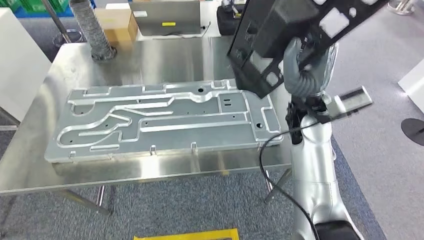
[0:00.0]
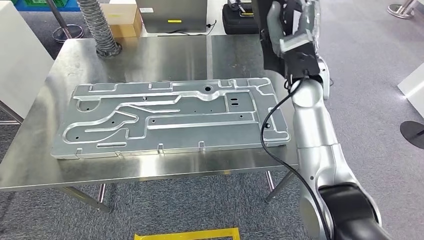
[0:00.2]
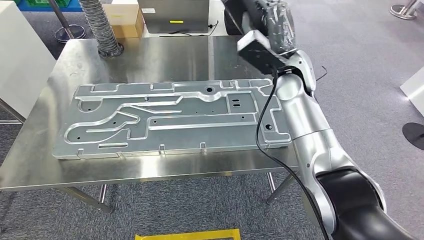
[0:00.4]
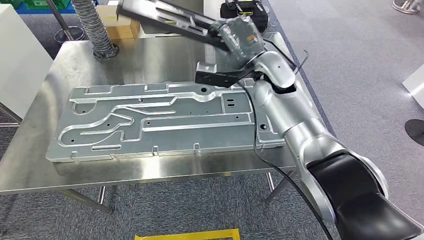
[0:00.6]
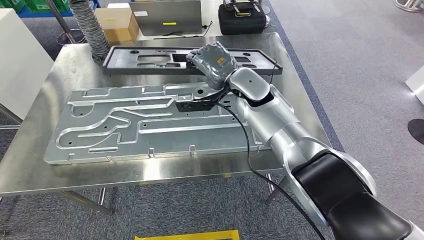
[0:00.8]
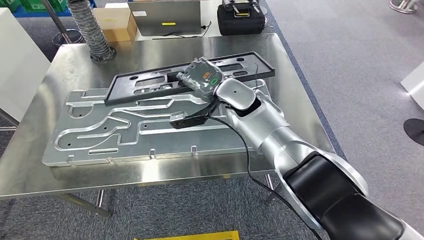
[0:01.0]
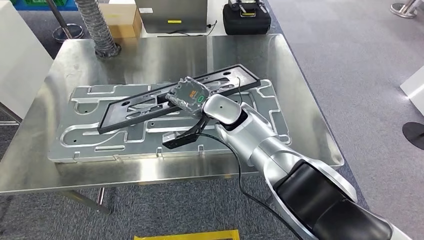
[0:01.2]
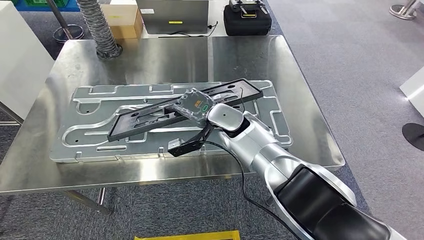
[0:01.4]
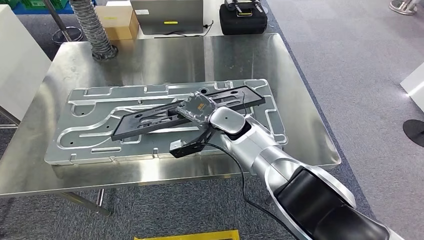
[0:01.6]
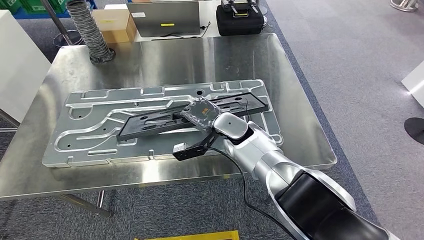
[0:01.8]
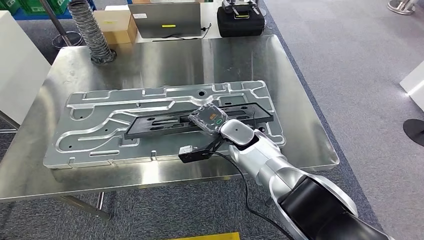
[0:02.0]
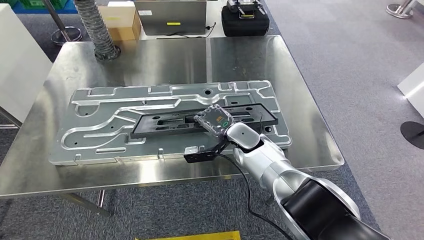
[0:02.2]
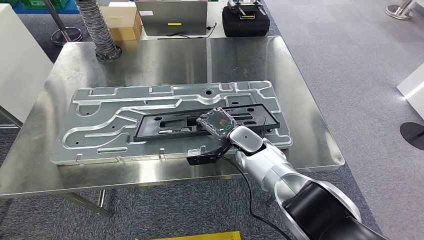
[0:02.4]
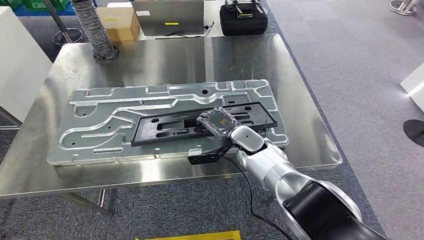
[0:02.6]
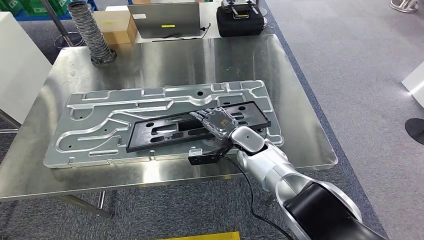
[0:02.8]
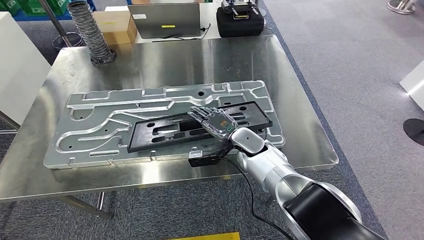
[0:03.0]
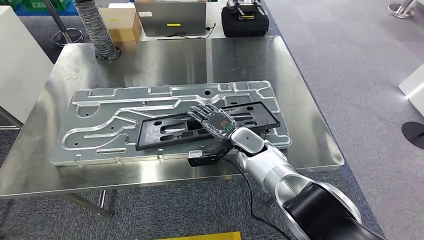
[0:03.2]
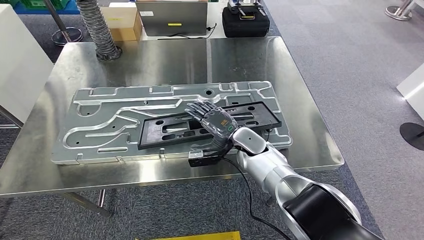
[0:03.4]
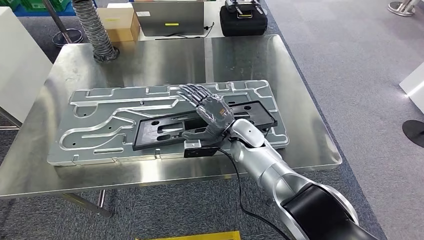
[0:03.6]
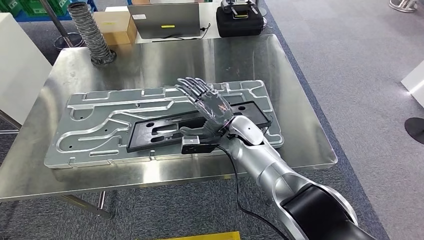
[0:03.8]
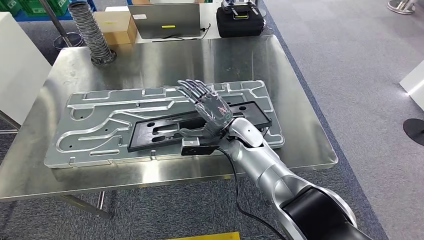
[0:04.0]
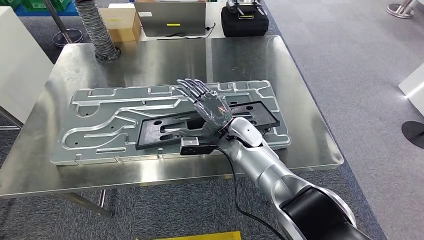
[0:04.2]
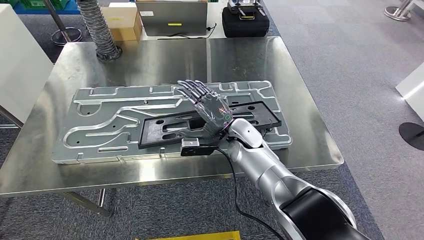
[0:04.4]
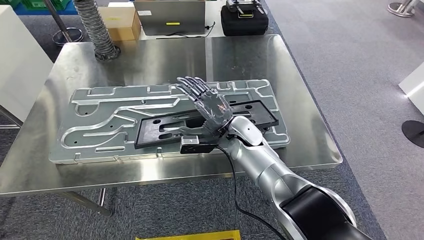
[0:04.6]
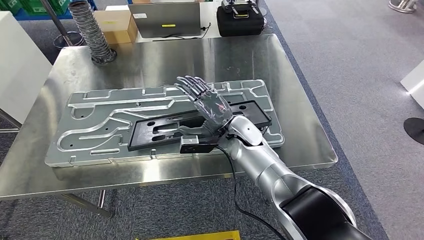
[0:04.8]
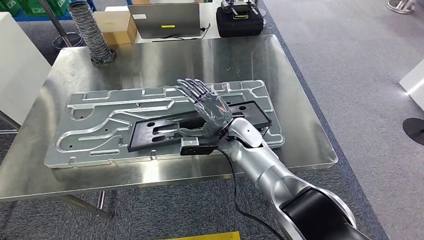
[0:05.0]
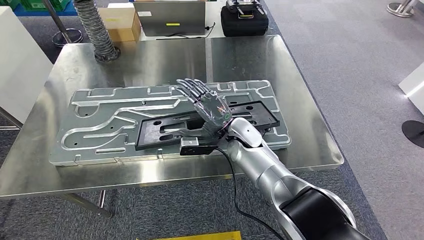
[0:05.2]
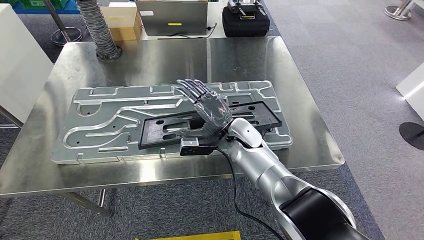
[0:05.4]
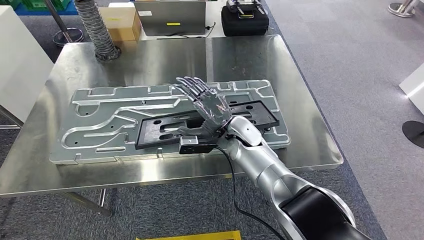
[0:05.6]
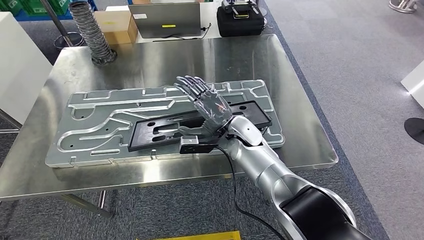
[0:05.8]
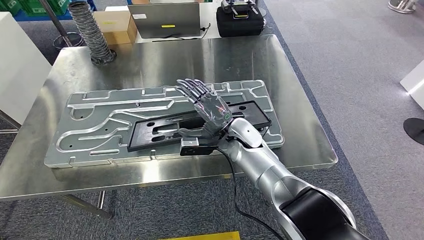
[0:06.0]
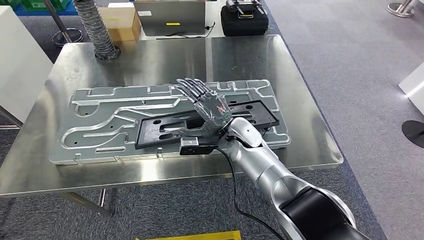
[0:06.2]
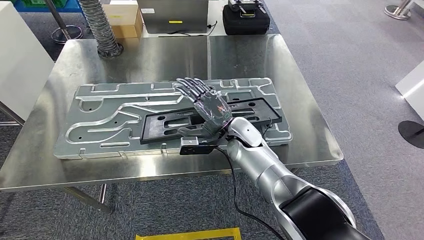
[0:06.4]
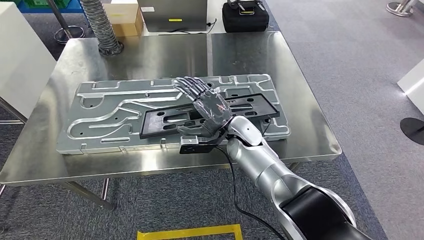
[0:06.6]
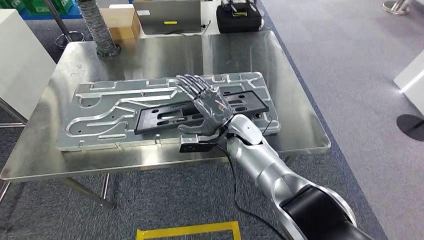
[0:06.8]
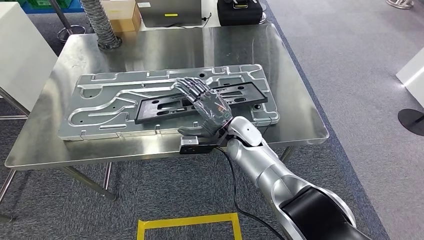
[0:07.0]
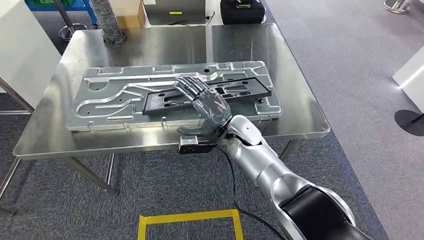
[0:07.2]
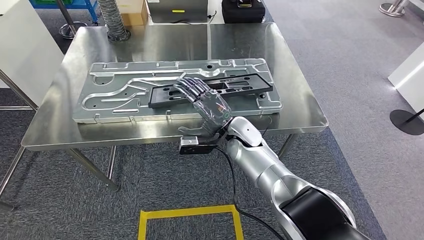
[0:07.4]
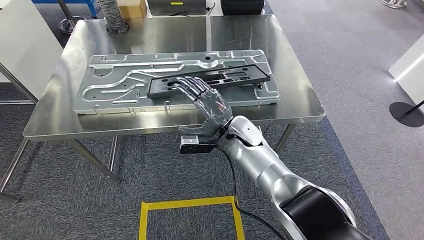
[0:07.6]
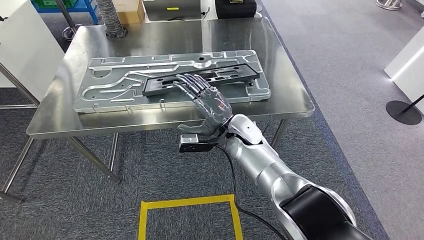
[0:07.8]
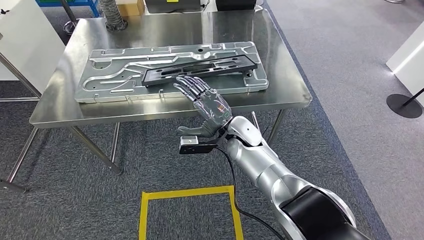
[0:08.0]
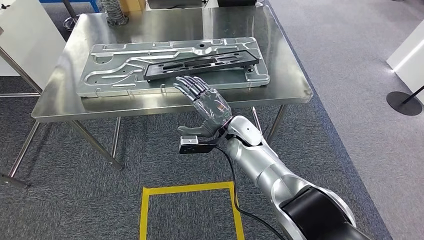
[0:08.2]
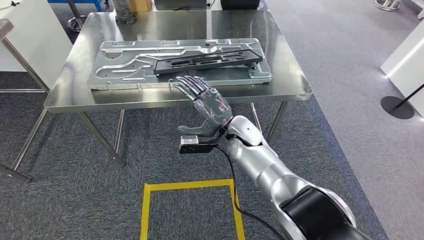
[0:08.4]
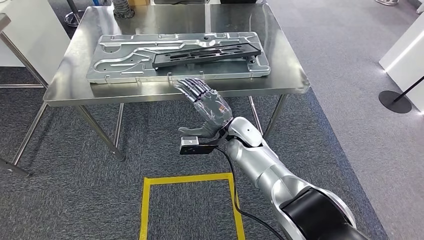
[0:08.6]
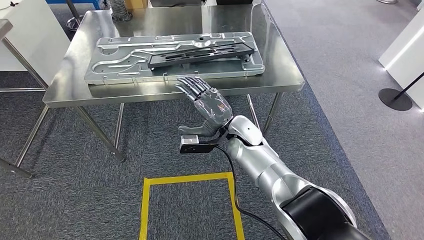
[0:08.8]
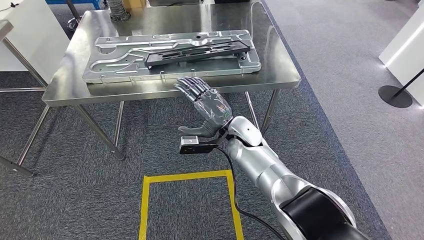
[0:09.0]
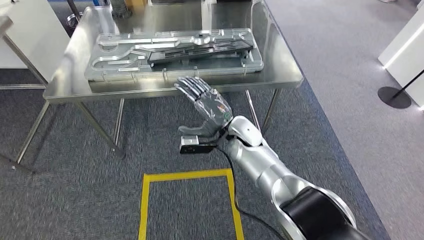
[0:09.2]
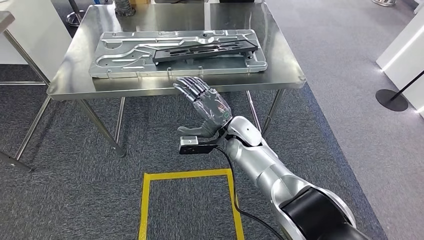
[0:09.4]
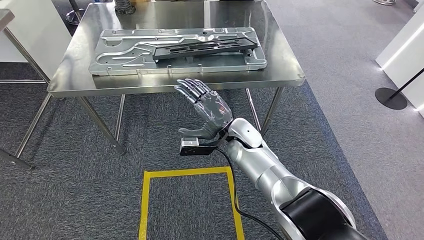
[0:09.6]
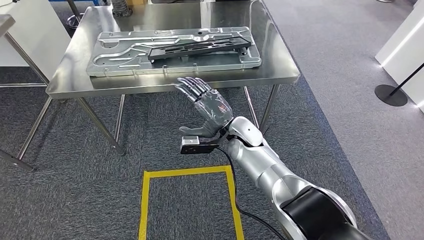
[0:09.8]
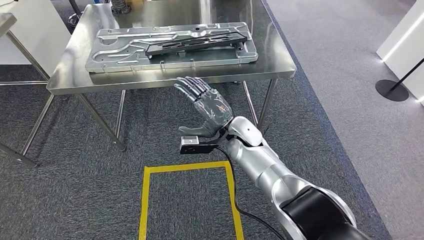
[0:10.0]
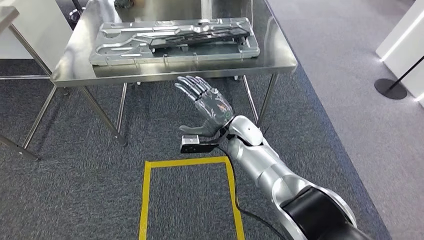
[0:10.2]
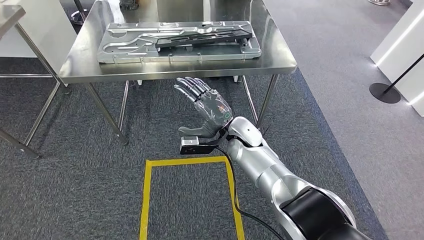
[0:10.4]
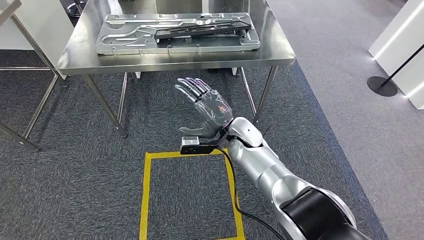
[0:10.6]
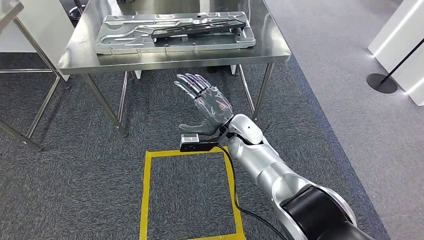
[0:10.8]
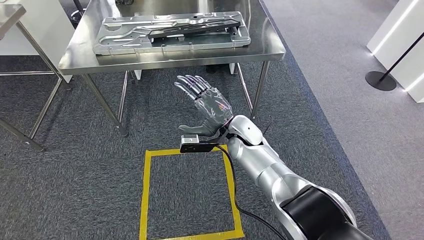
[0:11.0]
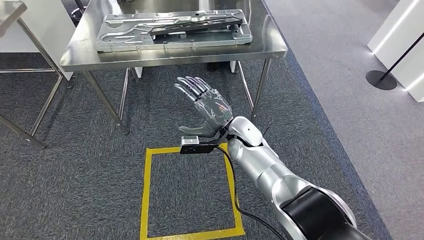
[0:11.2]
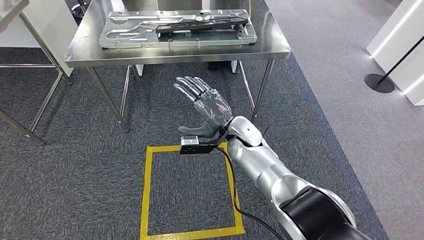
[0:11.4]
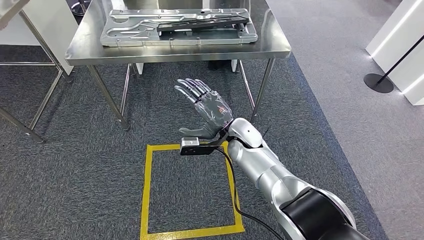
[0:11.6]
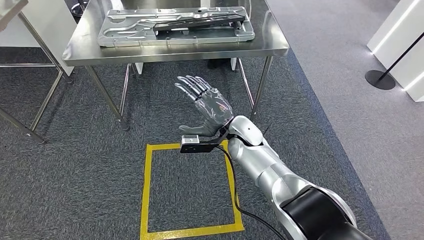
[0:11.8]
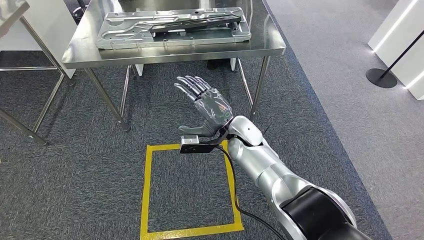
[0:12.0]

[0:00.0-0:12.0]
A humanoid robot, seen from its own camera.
Step, 0:01.0 to 0:06.4: Insert the large material into the corresponding hole on the workbench.
0:04.4 to 0:06.0: The two hands keep their place.

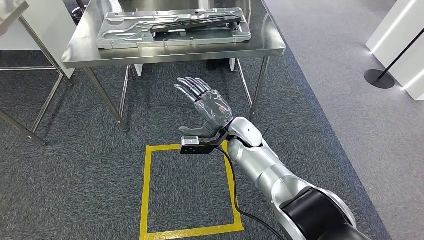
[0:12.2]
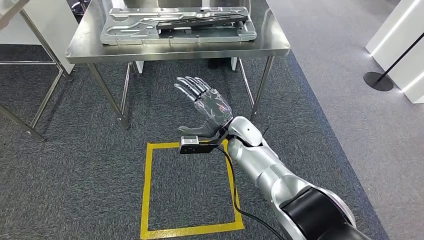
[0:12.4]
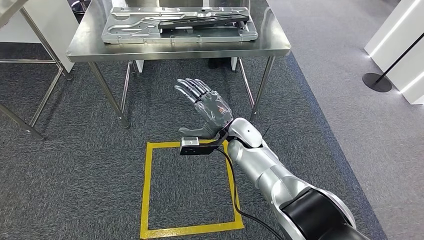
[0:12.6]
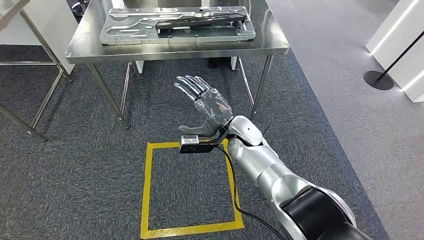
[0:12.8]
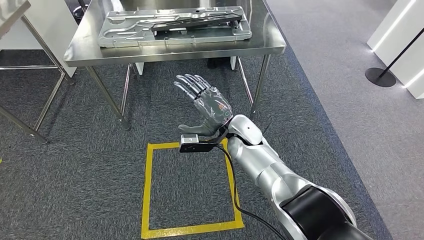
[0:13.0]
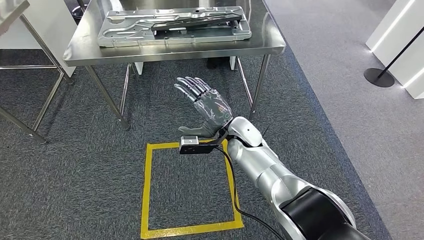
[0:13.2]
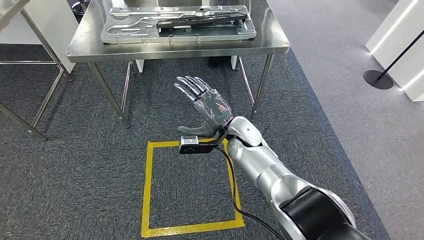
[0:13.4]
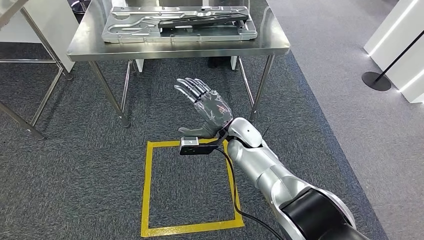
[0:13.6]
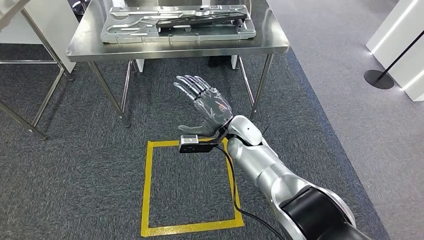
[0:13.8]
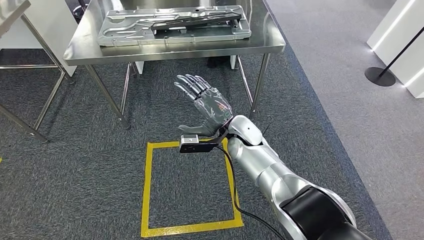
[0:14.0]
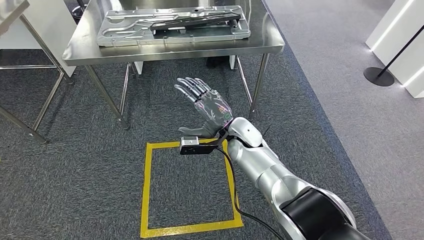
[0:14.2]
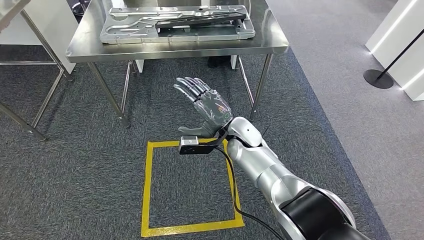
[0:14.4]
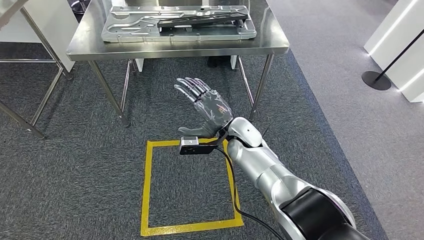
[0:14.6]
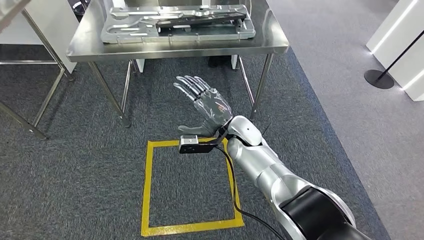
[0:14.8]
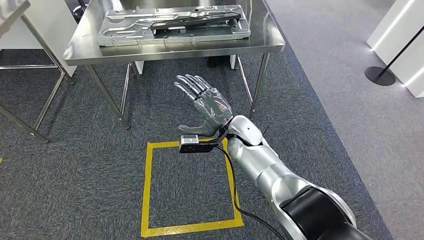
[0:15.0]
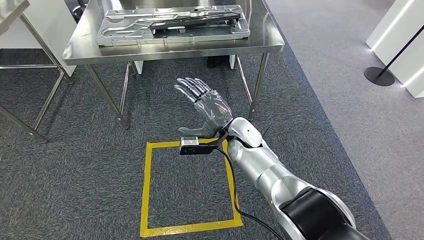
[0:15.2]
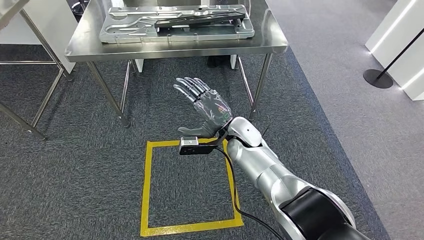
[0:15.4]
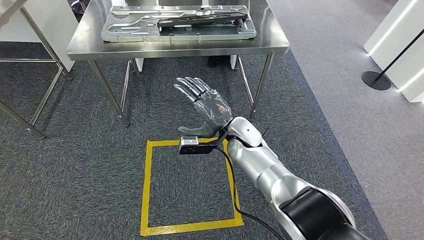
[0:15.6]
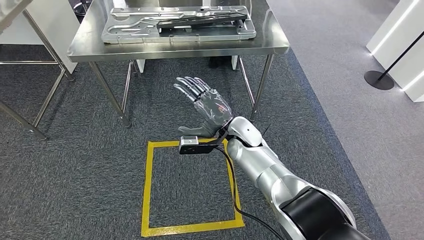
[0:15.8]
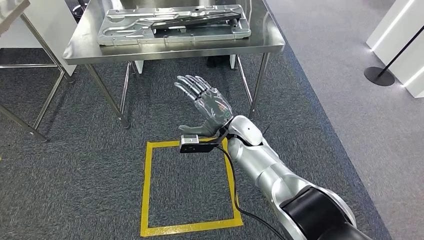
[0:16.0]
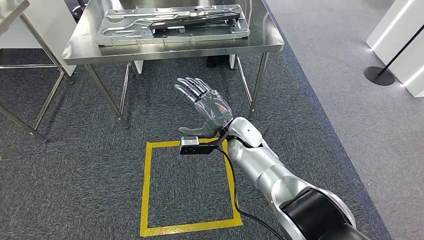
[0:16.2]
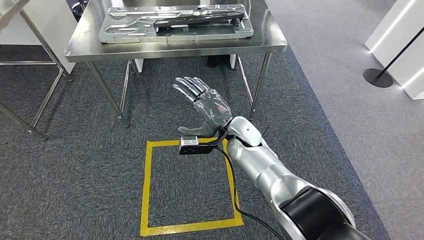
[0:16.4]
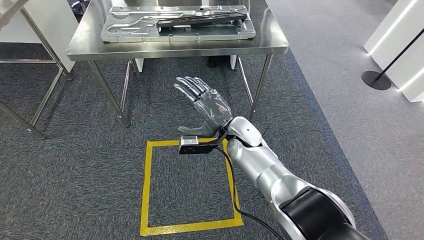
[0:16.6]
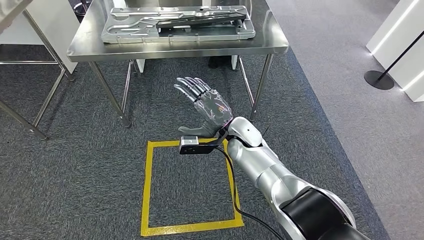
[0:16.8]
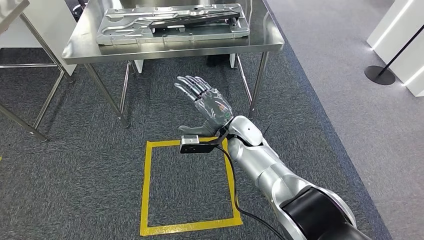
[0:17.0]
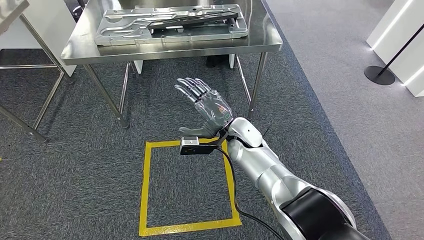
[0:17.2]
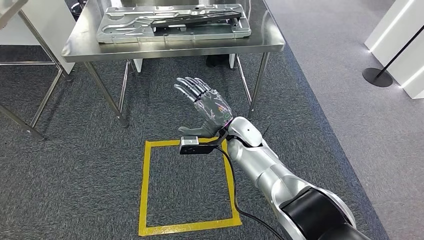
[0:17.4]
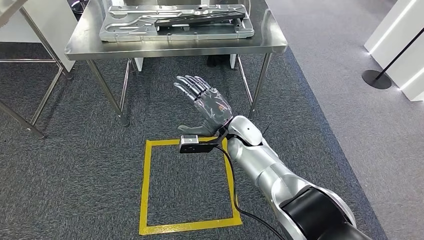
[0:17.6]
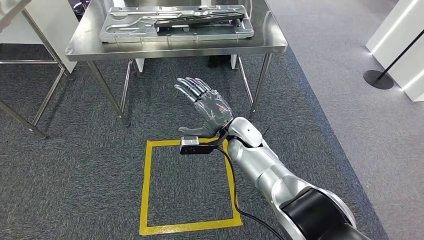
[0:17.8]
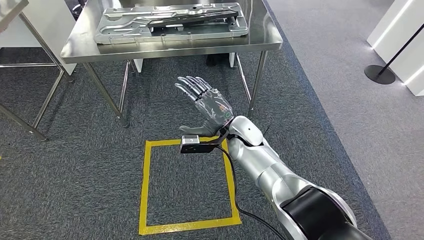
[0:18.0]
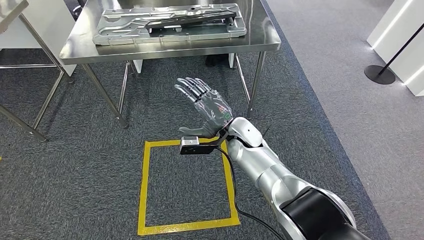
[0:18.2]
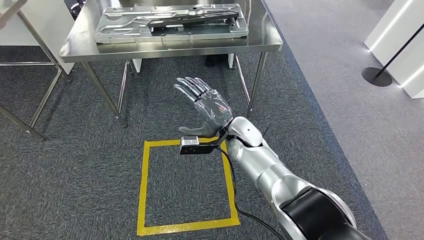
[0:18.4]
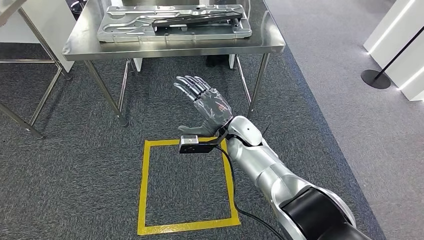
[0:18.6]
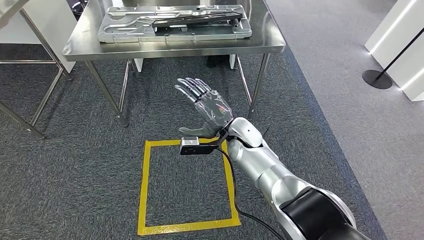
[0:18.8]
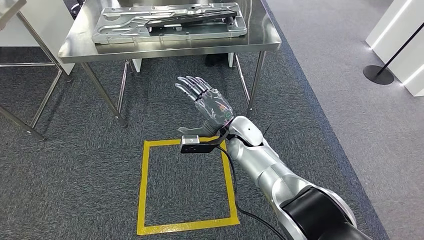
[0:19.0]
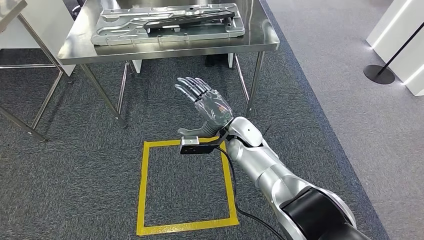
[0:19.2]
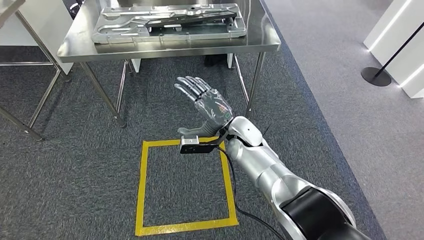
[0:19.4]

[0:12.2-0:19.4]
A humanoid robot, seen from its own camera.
0:12.2 to 0:19.4: Both hands stay about where they are.
